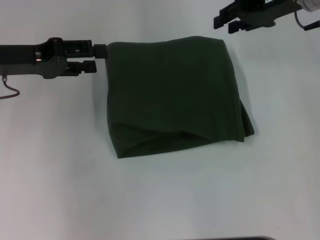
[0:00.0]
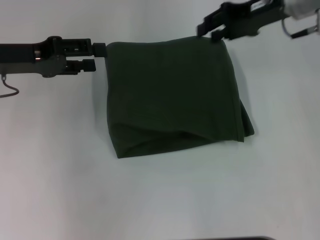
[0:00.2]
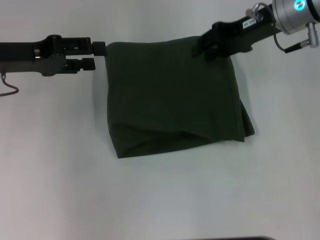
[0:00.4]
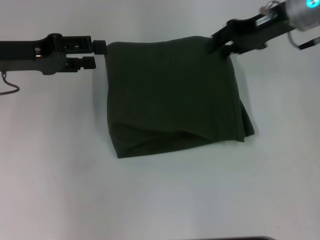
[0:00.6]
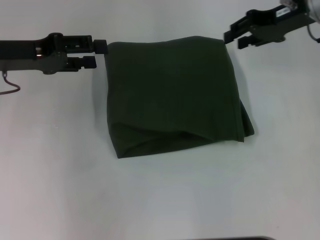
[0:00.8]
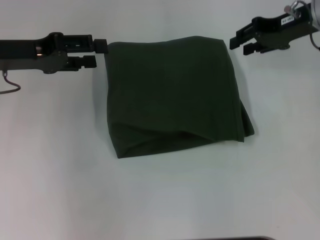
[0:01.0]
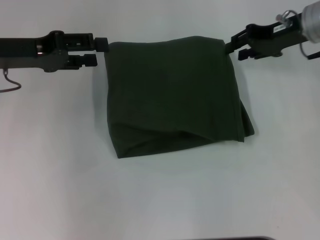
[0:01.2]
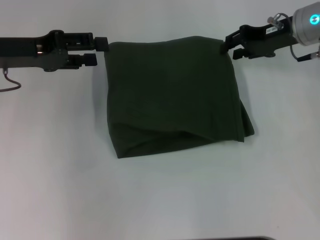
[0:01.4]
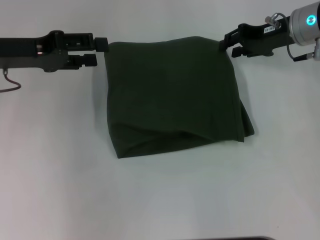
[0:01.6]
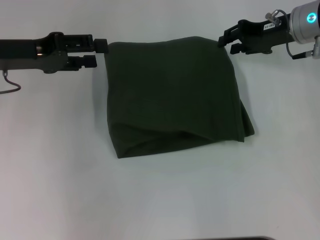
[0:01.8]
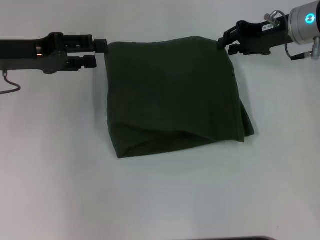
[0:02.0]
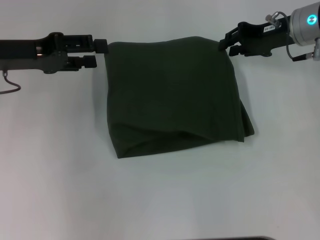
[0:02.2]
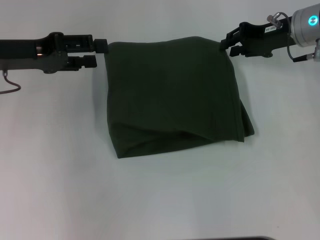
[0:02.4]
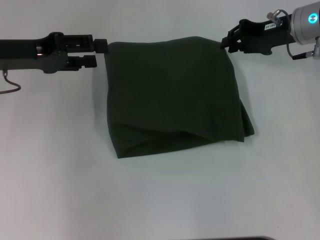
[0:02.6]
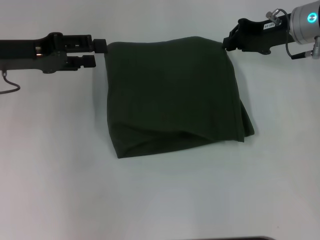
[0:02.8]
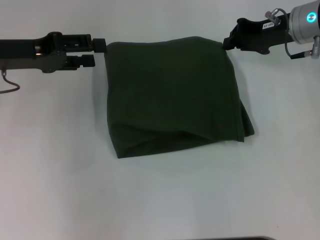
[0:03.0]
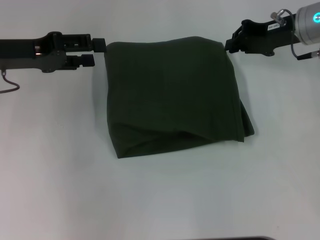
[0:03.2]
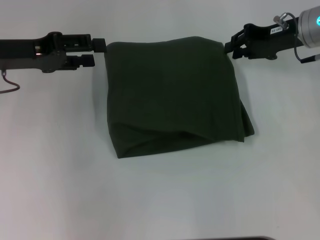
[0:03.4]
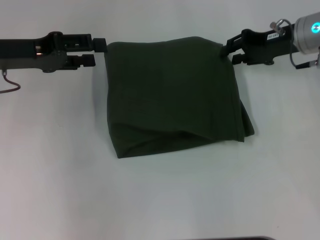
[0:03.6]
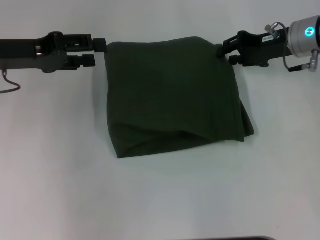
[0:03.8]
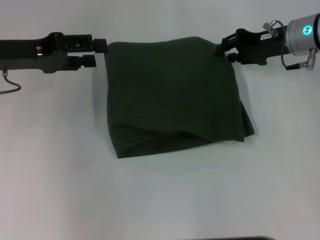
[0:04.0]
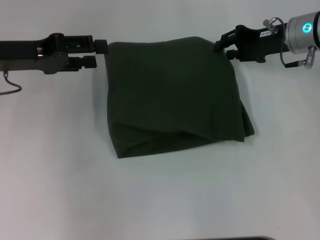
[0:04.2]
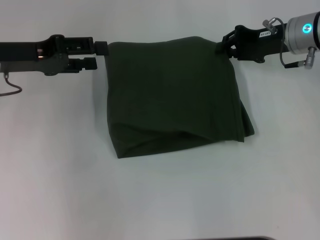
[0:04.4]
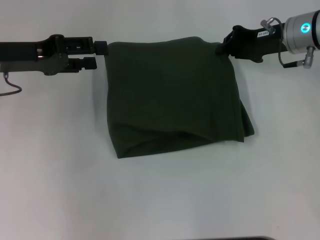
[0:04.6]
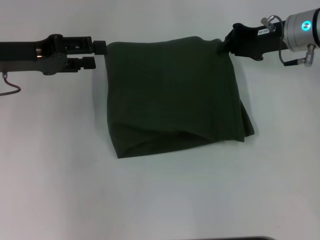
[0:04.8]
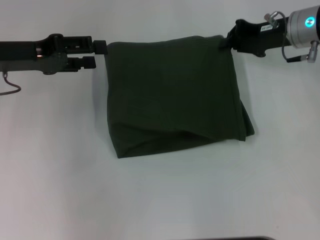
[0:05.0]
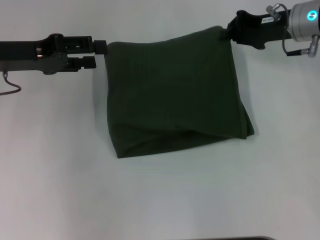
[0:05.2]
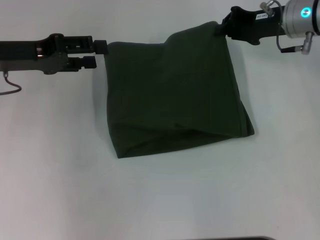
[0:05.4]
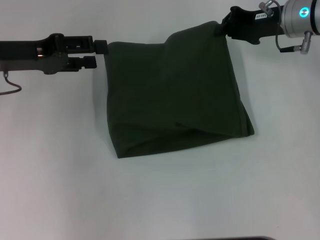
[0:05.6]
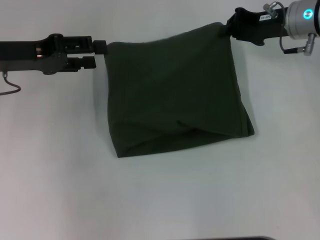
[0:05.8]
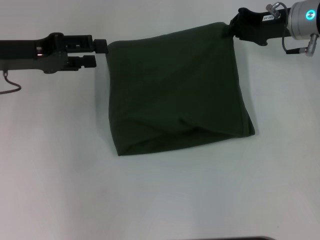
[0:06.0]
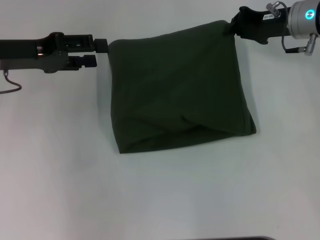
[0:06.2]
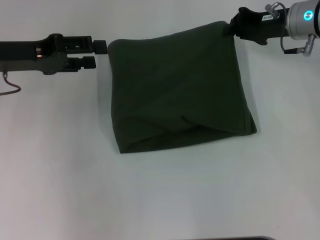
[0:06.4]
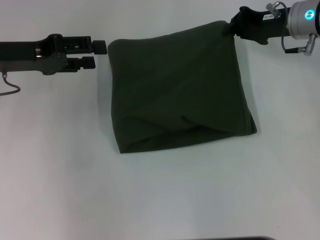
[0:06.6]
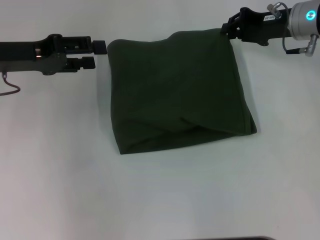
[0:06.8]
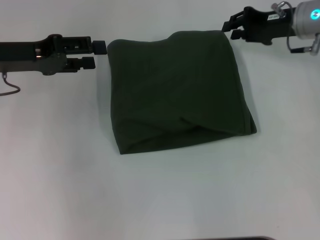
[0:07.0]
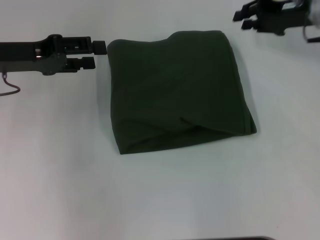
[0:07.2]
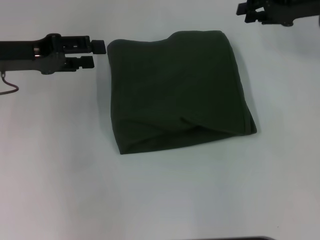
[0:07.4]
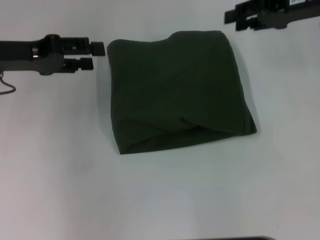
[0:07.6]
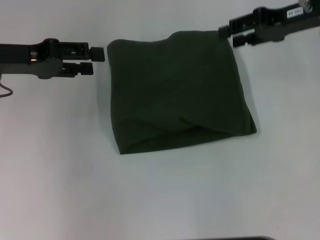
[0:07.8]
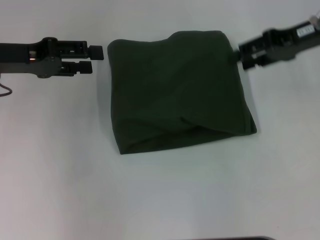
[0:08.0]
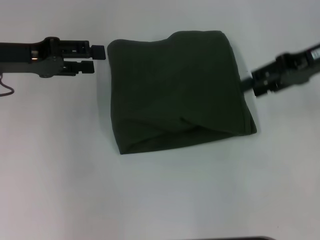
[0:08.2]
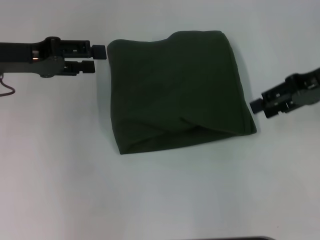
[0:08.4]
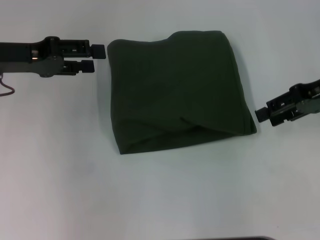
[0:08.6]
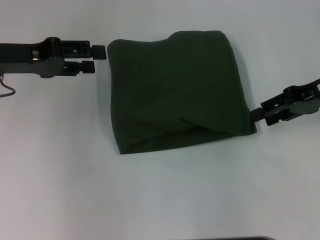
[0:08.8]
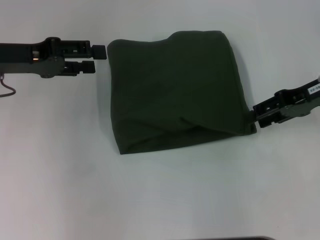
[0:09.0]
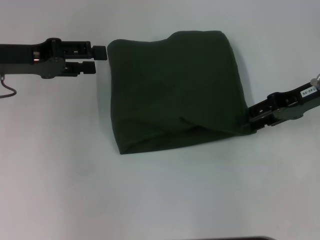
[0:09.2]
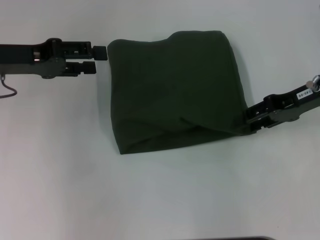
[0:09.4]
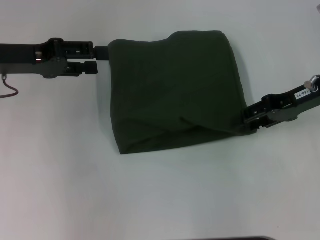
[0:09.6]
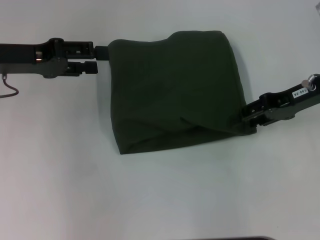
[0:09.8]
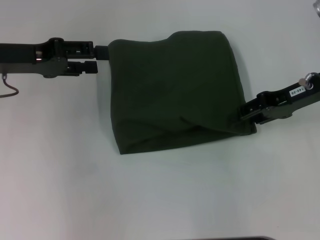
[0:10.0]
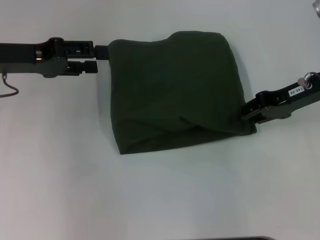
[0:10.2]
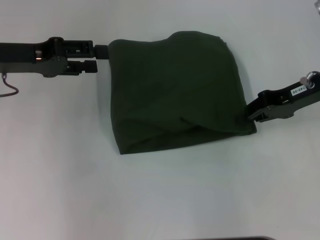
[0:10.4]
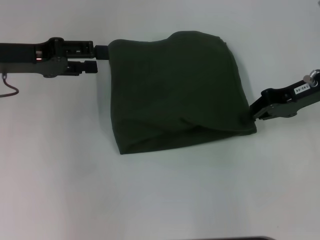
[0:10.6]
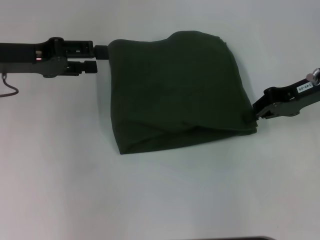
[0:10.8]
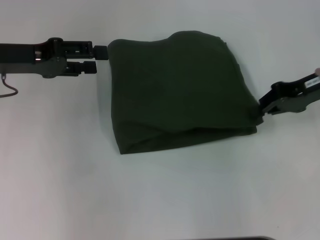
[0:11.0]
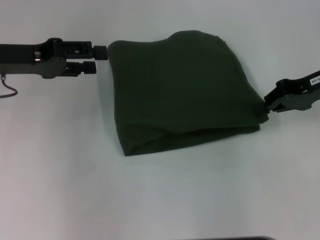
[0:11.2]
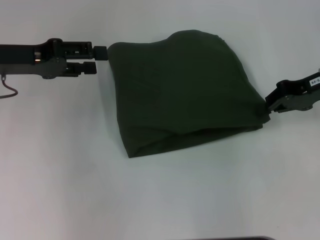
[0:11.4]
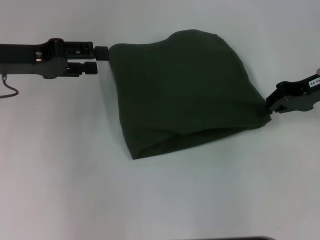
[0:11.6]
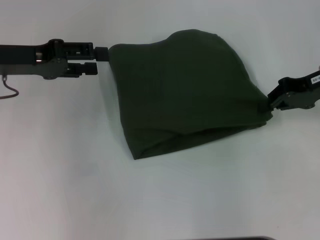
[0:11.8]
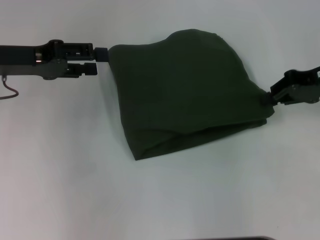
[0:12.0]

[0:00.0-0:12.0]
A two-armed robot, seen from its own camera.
0:00.0 to 0:01.6: The right gripper shifts some 5 cm downward.
0:01.6 to 0:03.0: The right gripper closes its fingers.
0:03.0 to 0:04.4: The right gripper opens up.
0:04.4 to 0:06.0: The right gripper closes.
0:06.0 to 0:07.6: The right gripper shifts about 5 cm upward, and opens its fingers.
0:07.6 to 0:09.0: The right gripper moves backward, roughly 5 cm.
0:09.0 to 0:10.4: The grippers move only a little.
0:10.4 to 0:12.0: The right gripper closes its fingers.

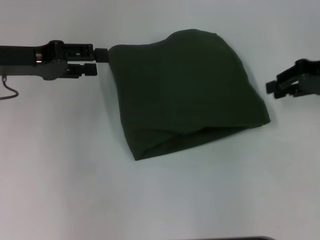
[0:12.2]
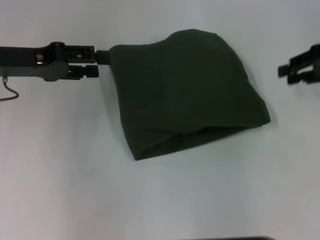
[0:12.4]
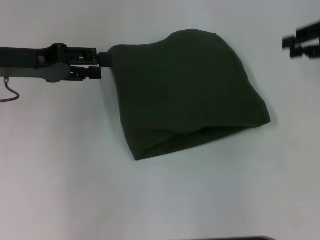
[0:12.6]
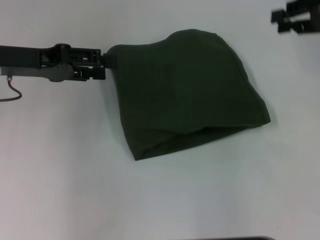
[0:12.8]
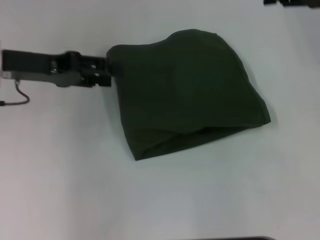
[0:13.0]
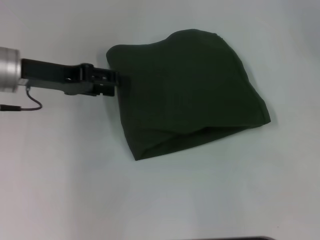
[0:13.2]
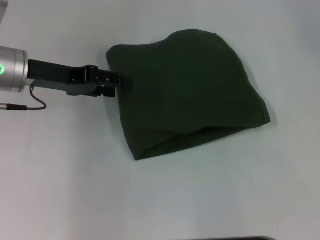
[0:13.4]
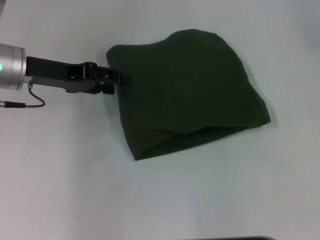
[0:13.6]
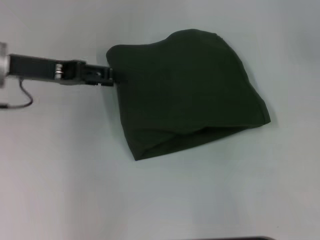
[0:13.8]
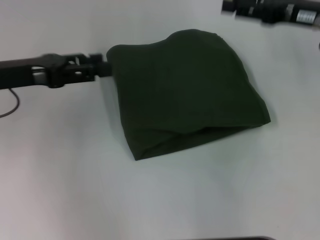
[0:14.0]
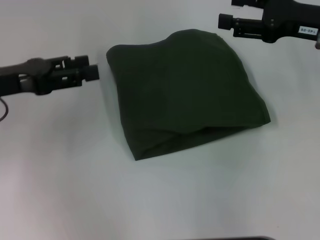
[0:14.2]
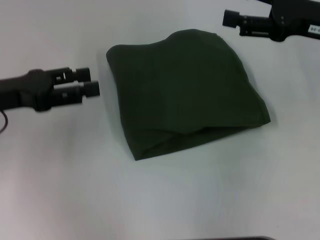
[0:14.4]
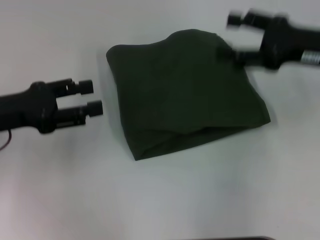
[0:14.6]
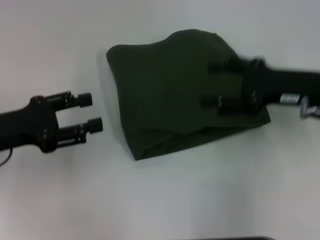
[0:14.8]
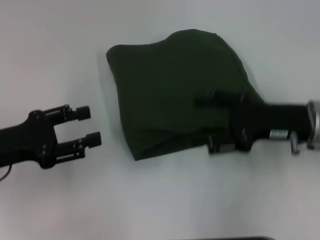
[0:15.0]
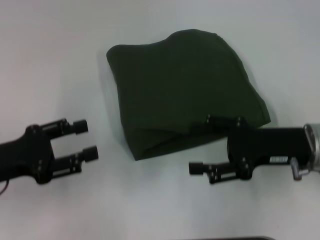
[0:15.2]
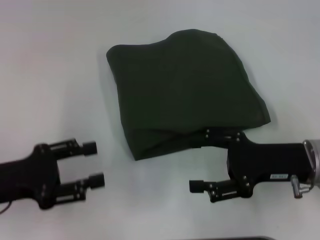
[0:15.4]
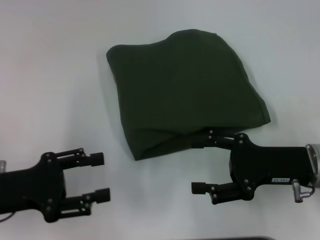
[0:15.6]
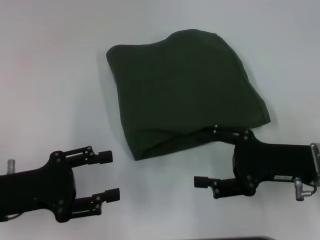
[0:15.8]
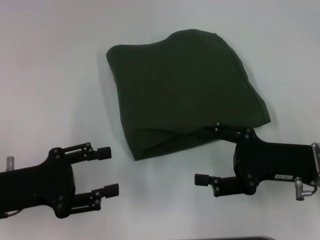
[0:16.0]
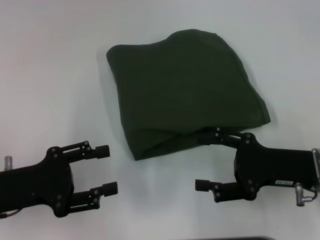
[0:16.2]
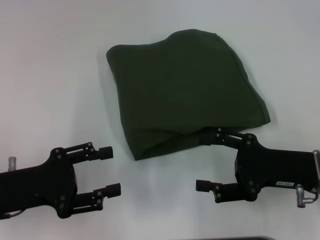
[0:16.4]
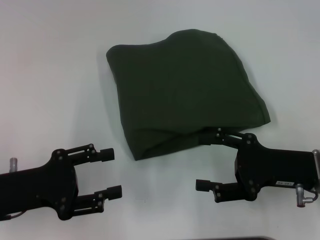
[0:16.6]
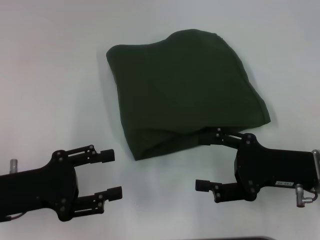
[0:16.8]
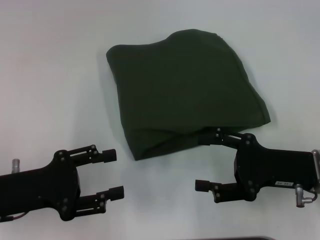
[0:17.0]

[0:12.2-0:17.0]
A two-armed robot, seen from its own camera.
0:12.2 to 0:13.8: The right gripper heads upward, covering approximately 5 cm.
0:13.8 to 0:15.4: The grippers both shift backward and downward by roughly 20 cm. The right gripper opens.
0:15.4 to 0:17.0: The grippers stay close to where they were, moving slightly.

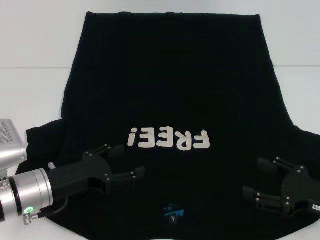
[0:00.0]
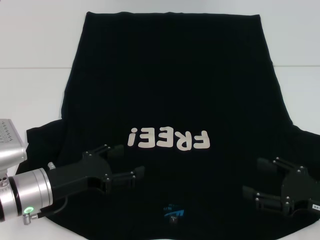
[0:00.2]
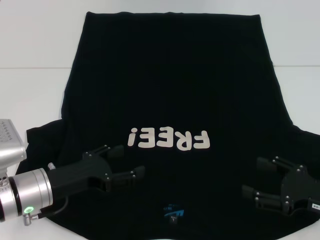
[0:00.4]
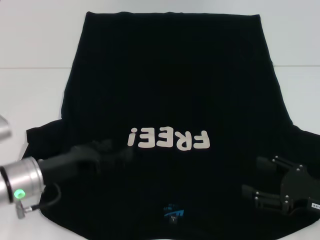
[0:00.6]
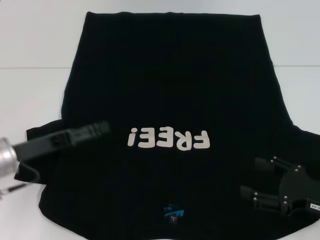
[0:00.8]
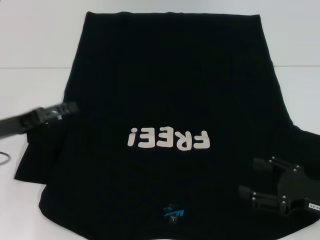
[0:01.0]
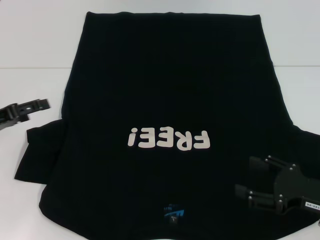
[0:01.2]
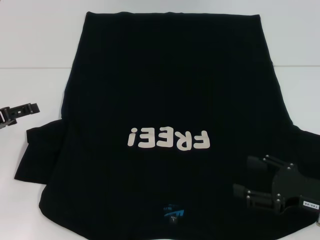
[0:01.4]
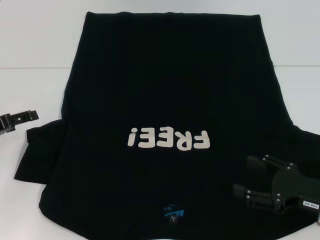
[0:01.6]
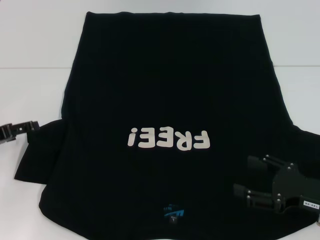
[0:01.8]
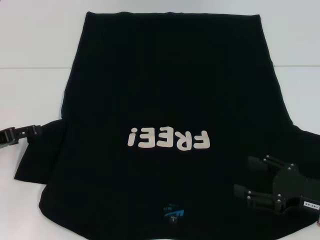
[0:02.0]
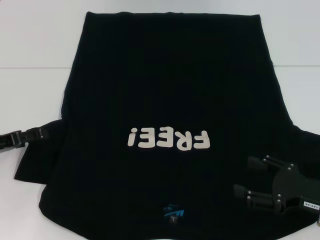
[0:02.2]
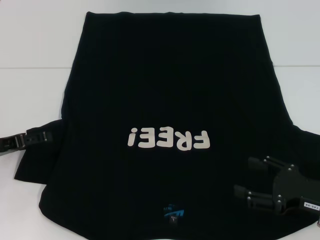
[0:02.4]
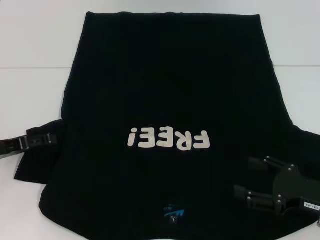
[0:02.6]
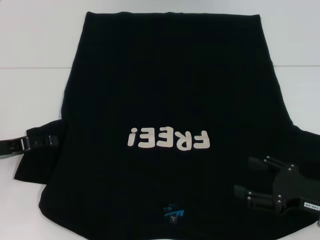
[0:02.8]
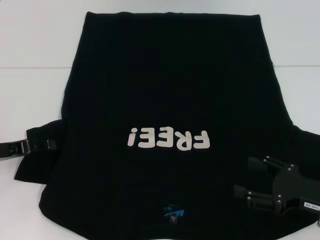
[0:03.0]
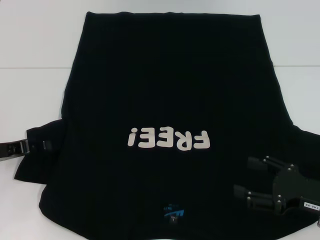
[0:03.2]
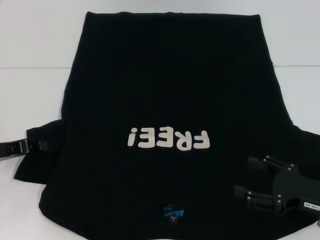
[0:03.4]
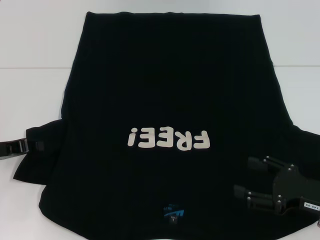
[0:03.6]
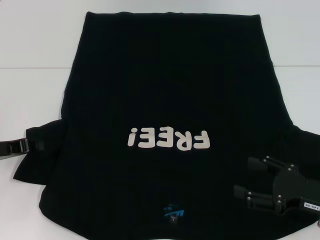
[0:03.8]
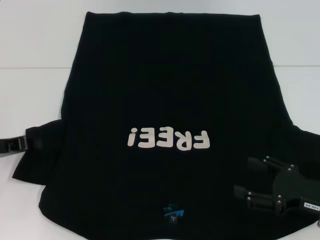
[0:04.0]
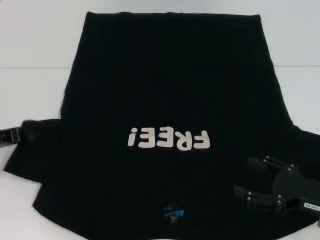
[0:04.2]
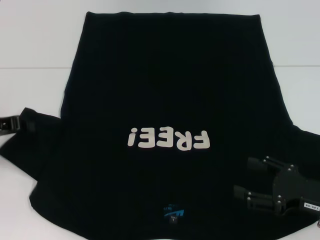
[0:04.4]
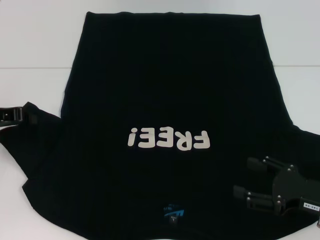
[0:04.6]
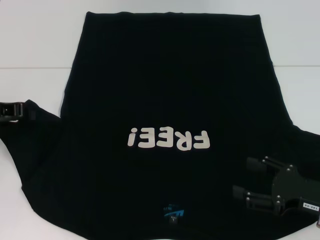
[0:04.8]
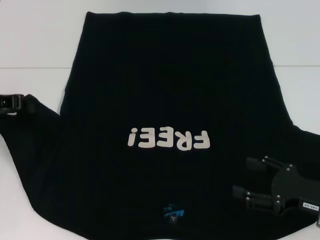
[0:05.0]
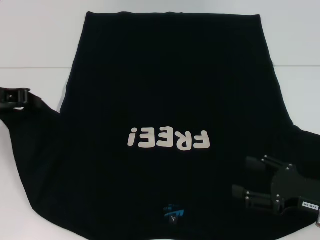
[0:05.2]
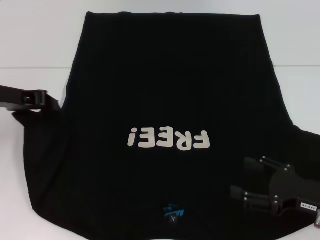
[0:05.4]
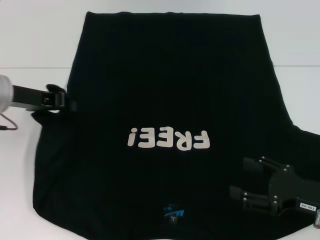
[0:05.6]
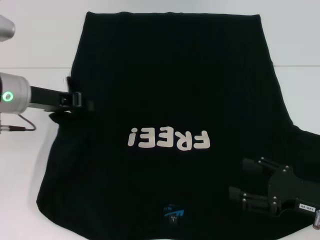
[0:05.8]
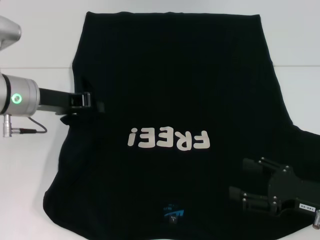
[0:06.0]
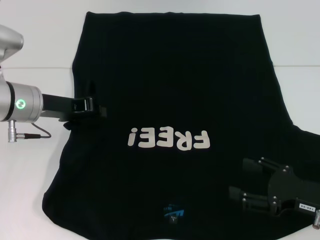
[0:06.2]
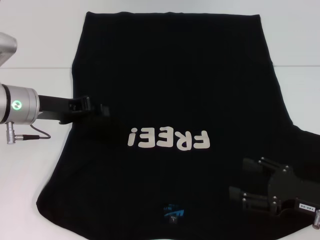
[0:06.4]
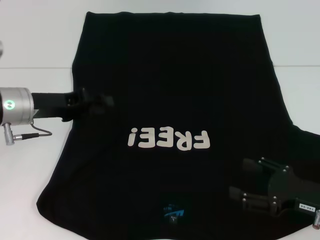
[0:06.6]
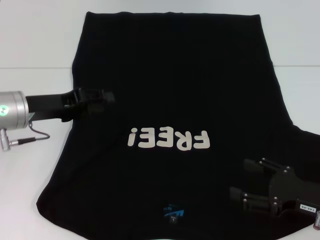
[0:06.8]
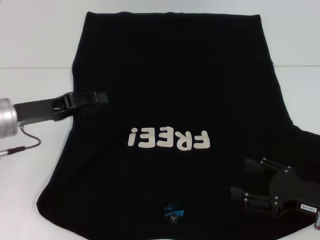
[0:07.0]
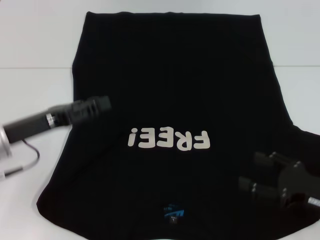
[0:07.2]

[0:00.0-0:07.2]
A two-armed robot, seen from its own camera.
Step, 0:00.0 to 0:06.4: Fold the bottom left sleeve with your left hand.
0:00.0 to 0:01.4: The left gripper shifts some 15 cm to the left, upward and forward.
0:01.4 to 0:02.8: The grippers stay close to where they were, moving slightly.
0:02.8 to 0:04.4: The left gripper closes up.
0:04.4 to 0:05.8: The left gripper is displaced to the right by about 10 cm.
0:05.8 to 0:07.2: The left gripper moves backward and downward, approximately 10 cm, and opens up.
